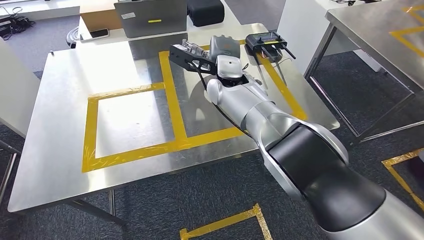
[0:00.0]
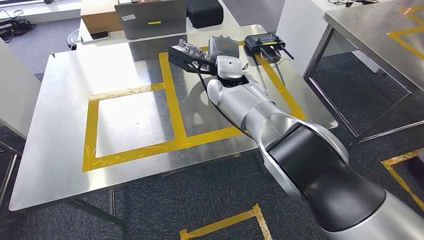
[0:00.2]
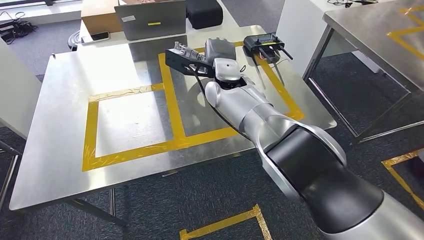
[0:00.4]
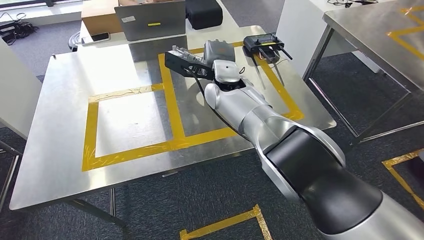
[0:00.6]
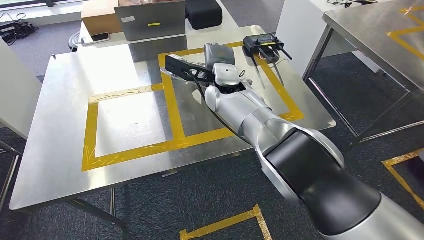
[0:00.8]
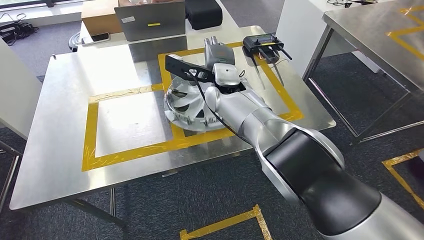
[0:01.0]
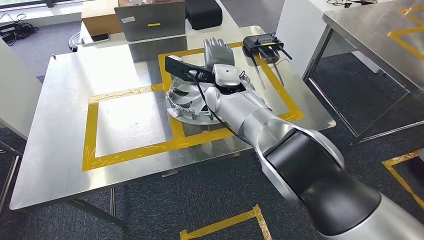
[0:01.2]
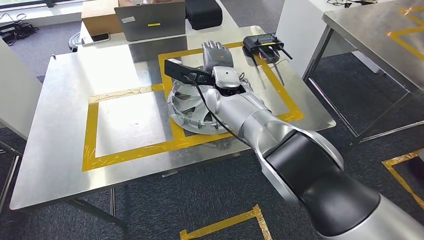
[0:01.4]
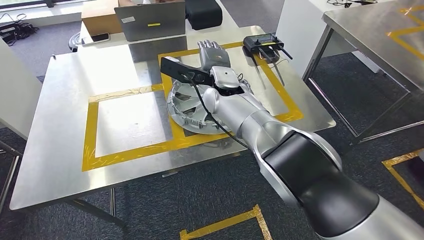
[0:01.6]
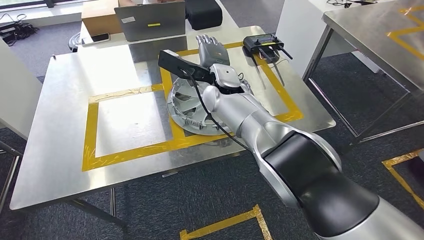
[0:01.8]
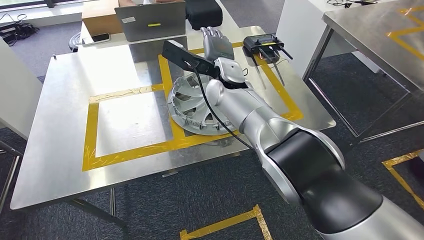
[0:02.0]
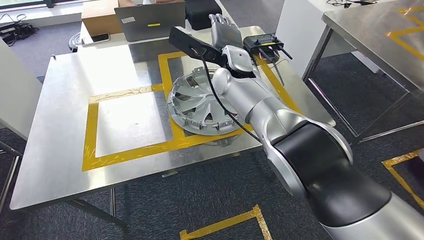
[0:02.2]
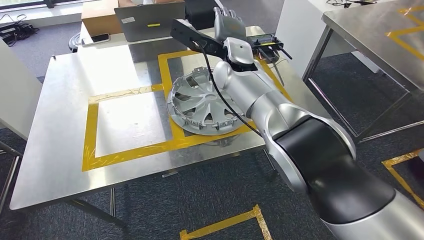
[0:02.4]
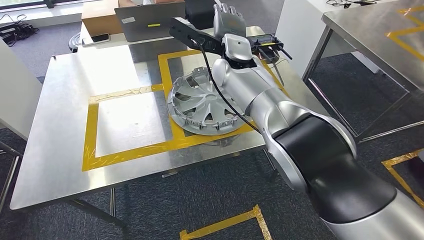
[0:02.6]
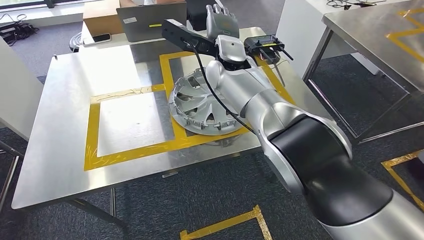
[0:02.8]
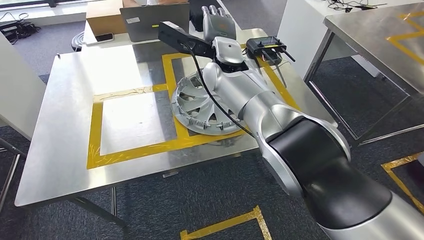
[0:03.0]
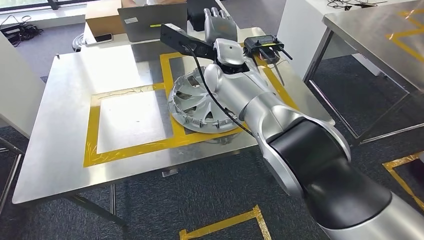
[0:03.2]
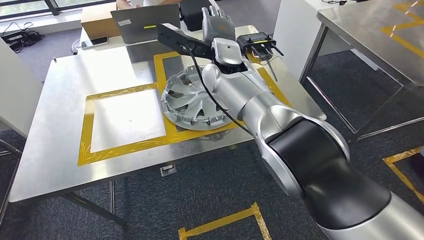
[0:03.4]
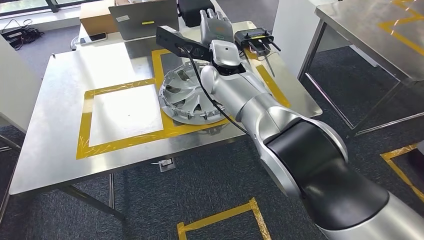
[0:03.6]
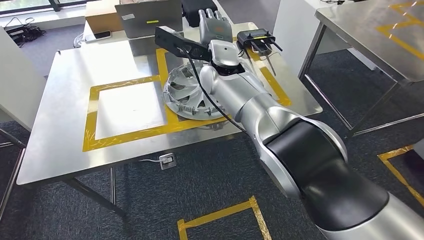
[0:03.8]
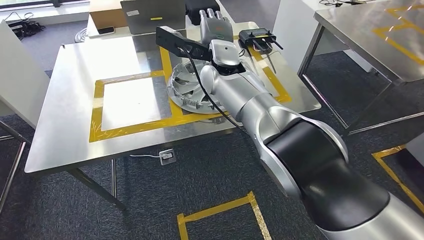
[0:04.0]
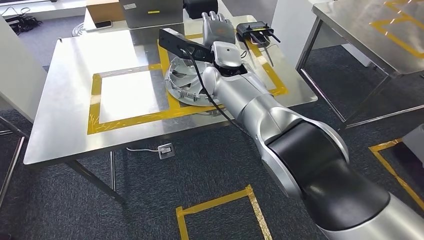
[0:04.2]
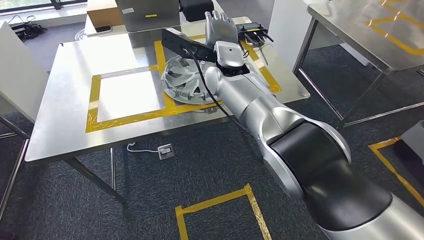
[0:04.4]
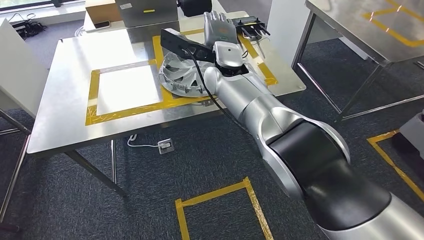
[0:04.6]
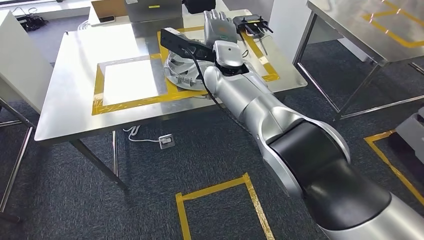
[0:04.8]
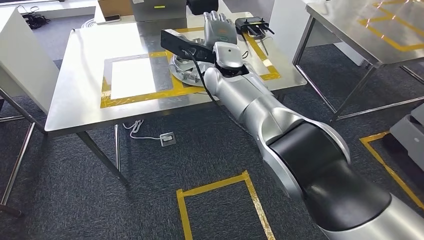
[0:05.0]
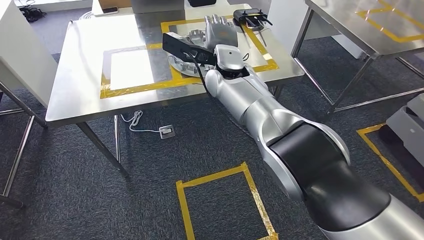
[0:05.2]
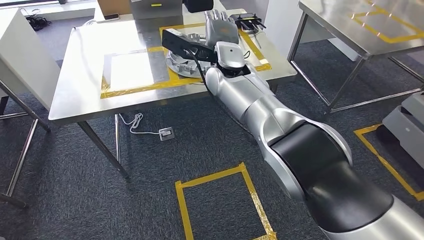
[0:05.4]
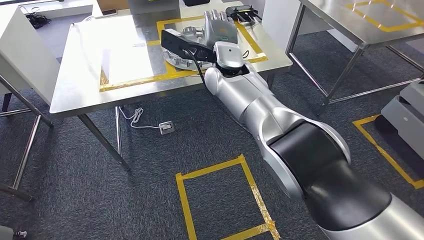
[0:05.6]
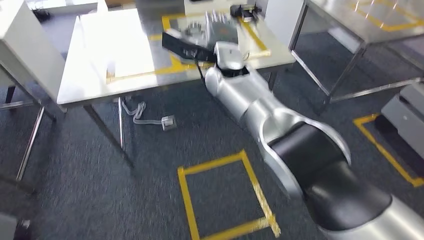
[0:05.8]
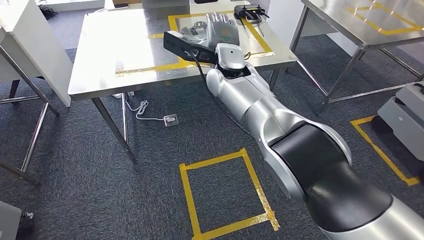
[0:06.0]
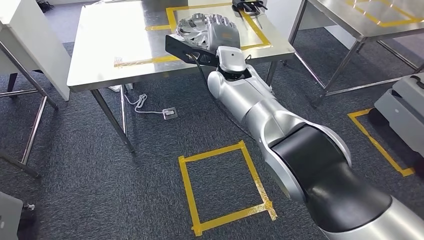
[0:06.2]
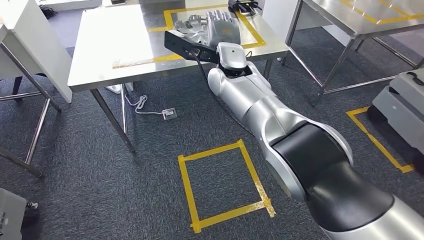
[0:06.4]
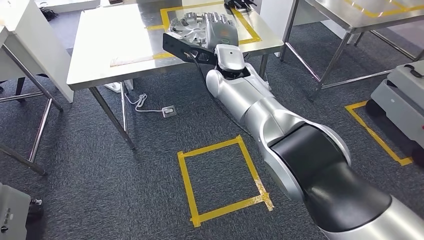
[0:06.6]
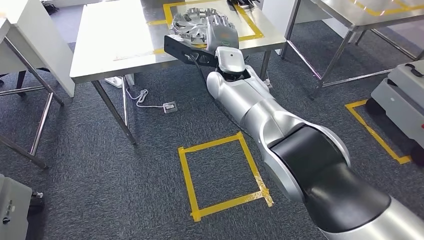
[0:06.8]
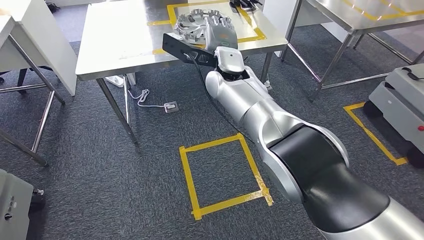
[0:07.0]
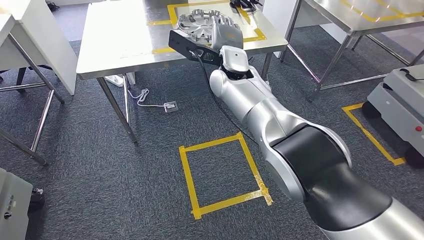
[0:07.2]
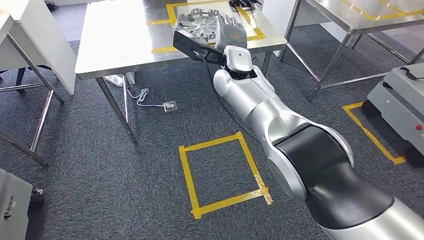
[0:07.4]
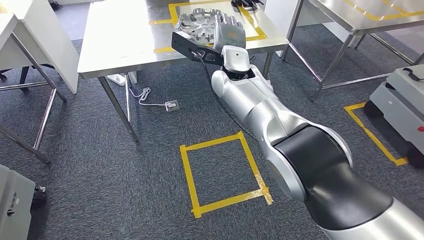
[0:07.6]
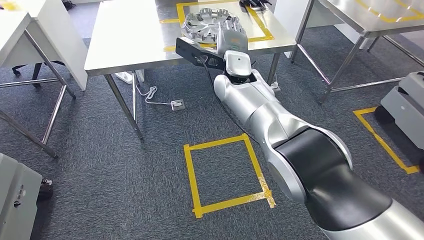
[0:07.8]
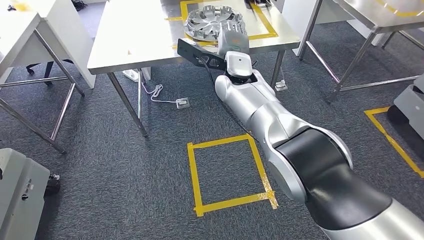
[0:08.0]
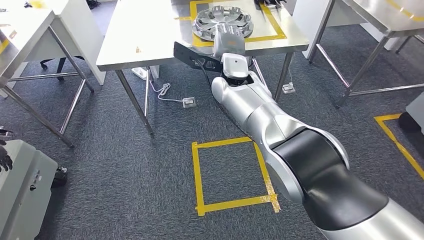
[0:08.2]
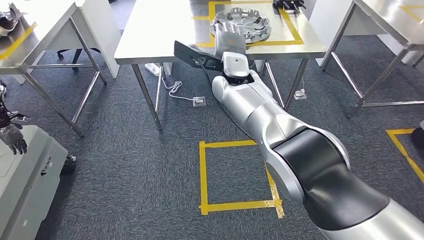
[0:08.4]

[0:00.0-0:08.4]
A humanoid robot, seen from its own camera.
Step, 0:00.4 to 0:03.0: Insert the small component into the corresponding slot on the workbench.
Step, 0:03.4 to 0:08.4: Return to the initial position at the workbench.
0:01.4 to 0:02.8: The right hand shifts some 5 cm upward.

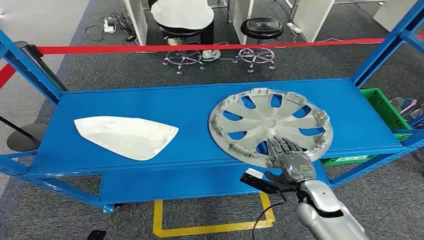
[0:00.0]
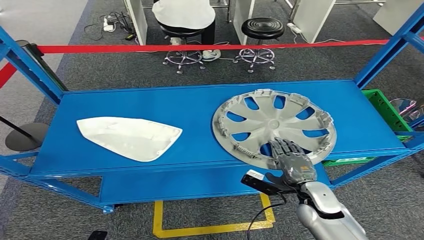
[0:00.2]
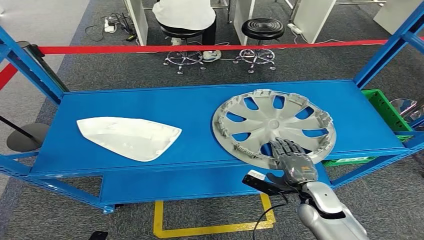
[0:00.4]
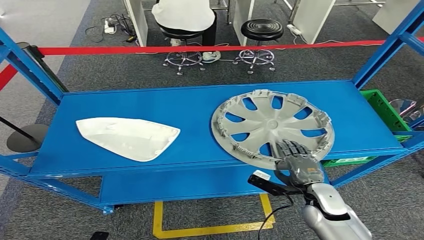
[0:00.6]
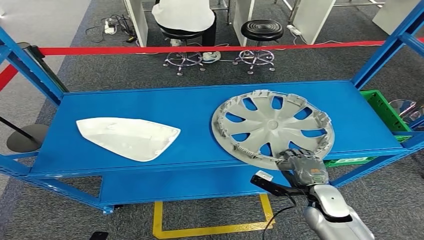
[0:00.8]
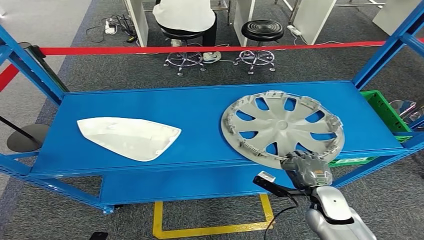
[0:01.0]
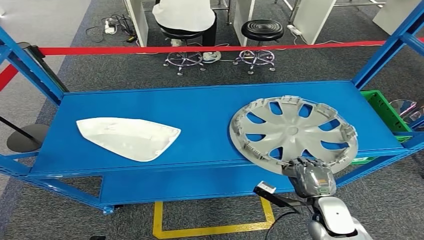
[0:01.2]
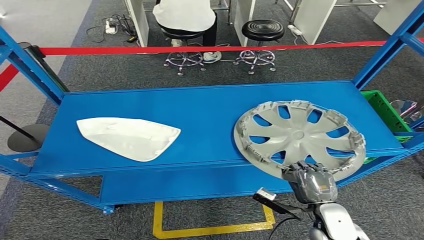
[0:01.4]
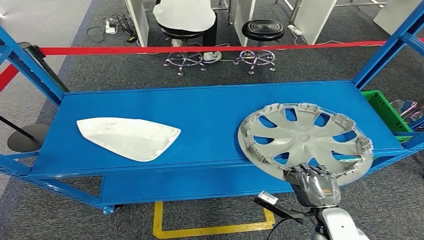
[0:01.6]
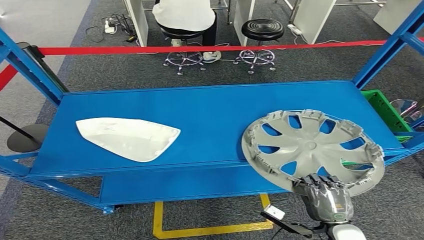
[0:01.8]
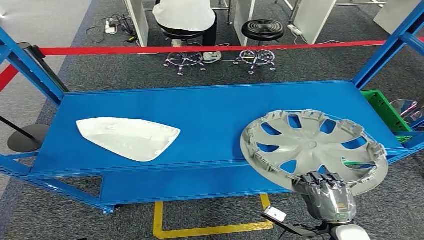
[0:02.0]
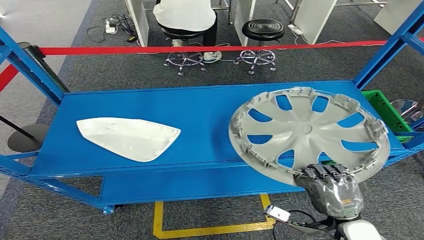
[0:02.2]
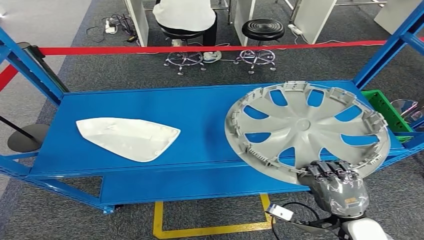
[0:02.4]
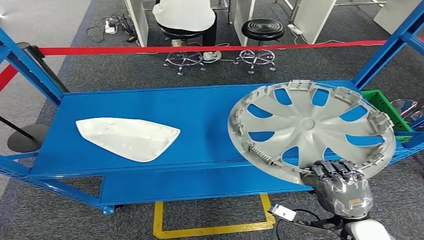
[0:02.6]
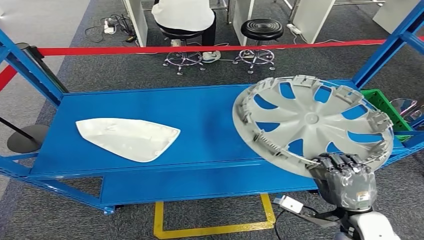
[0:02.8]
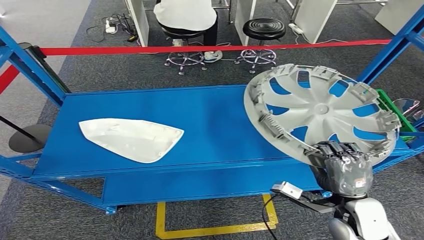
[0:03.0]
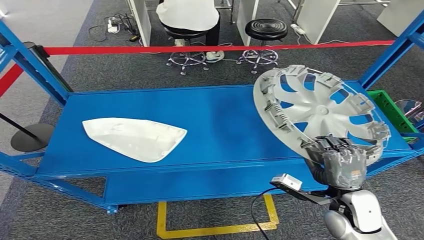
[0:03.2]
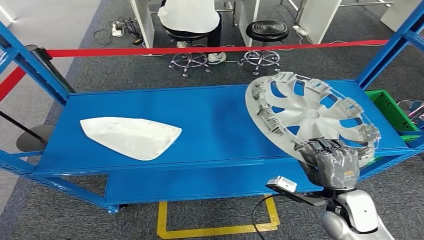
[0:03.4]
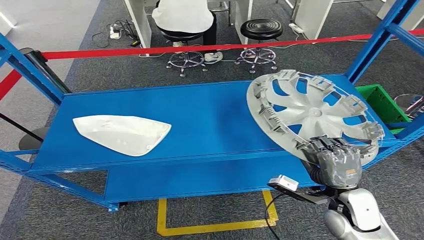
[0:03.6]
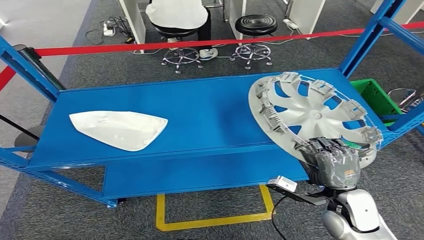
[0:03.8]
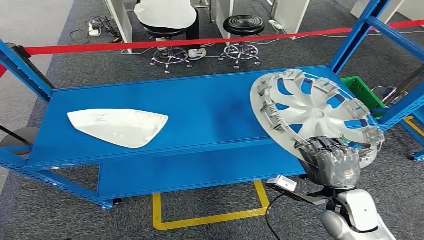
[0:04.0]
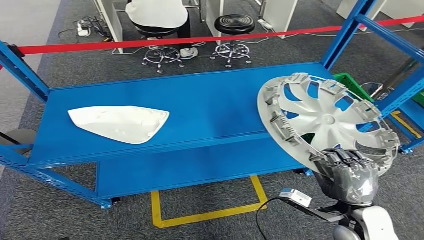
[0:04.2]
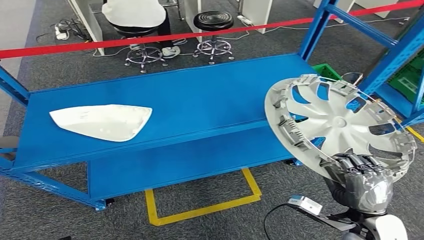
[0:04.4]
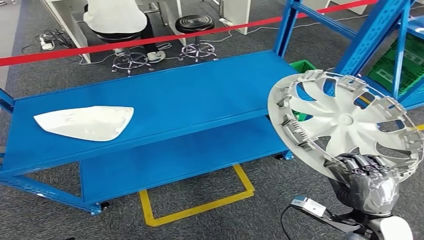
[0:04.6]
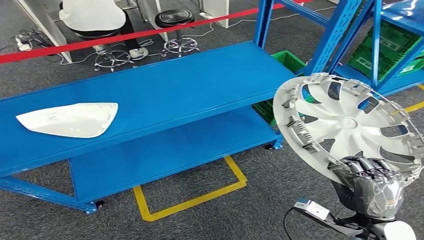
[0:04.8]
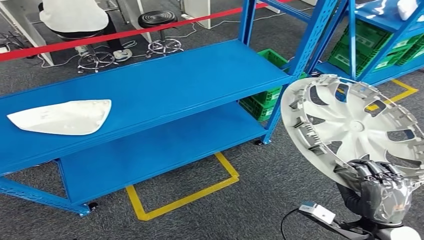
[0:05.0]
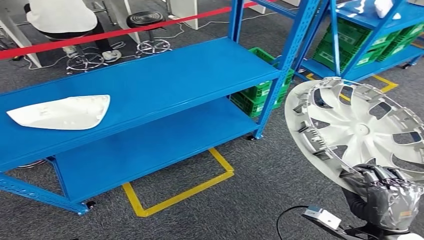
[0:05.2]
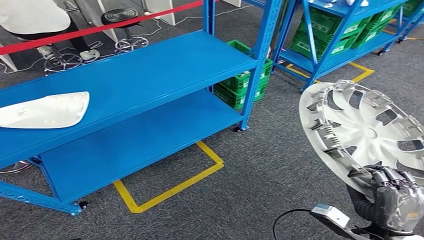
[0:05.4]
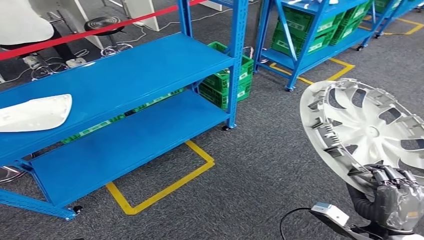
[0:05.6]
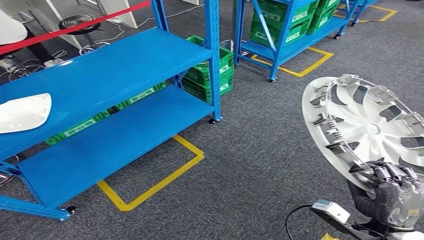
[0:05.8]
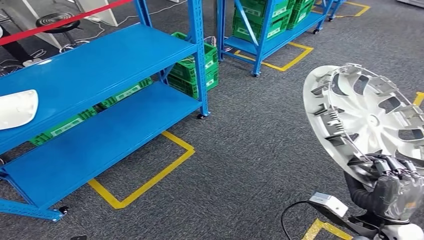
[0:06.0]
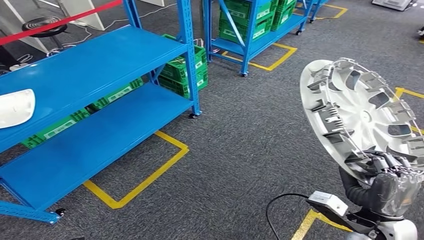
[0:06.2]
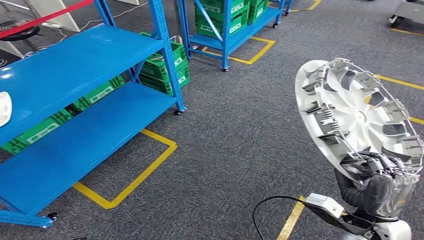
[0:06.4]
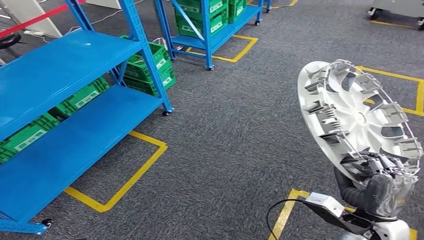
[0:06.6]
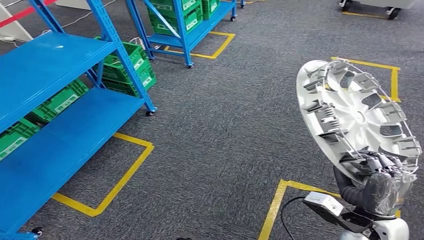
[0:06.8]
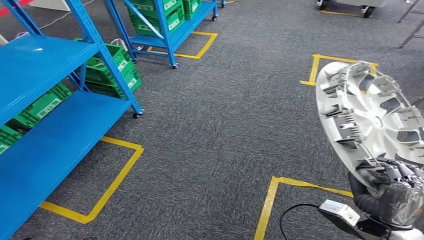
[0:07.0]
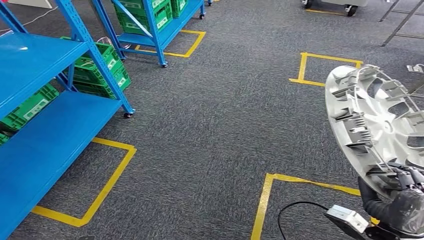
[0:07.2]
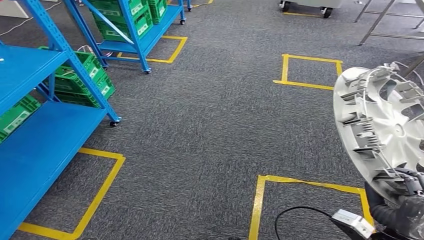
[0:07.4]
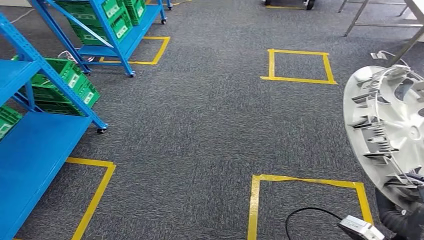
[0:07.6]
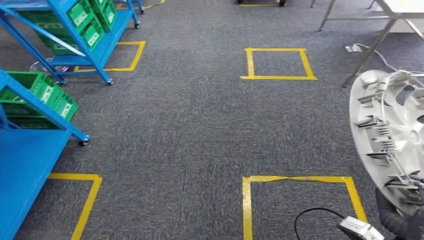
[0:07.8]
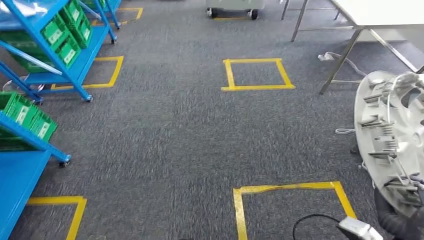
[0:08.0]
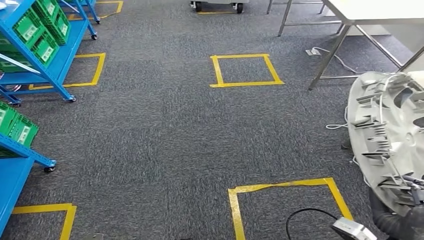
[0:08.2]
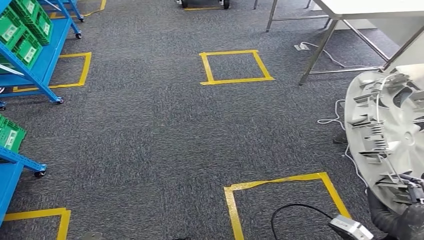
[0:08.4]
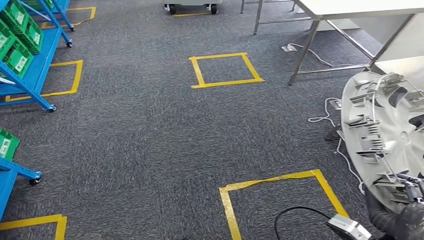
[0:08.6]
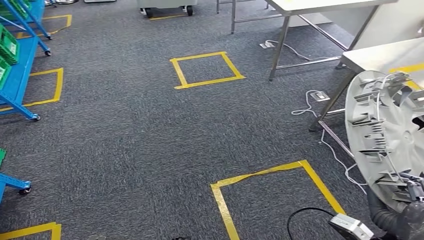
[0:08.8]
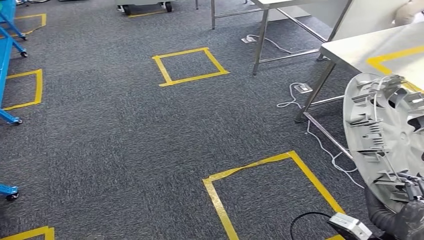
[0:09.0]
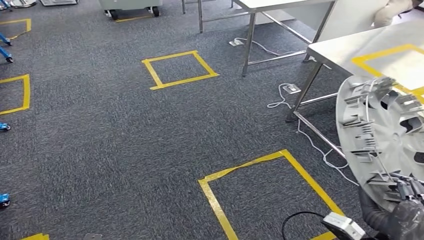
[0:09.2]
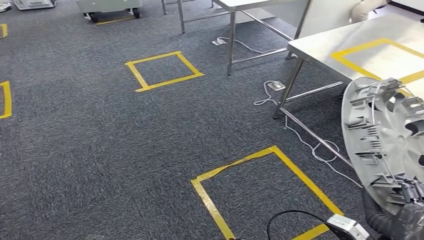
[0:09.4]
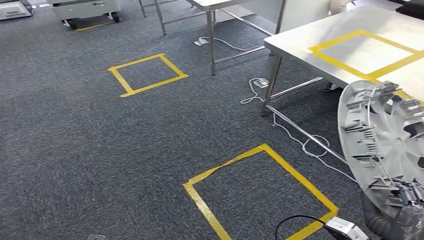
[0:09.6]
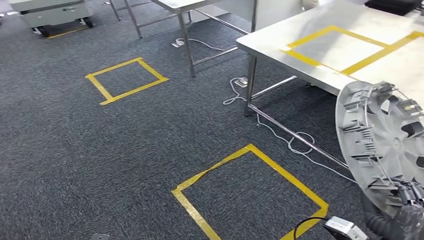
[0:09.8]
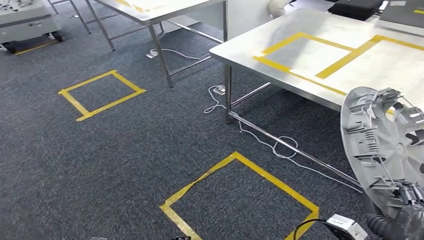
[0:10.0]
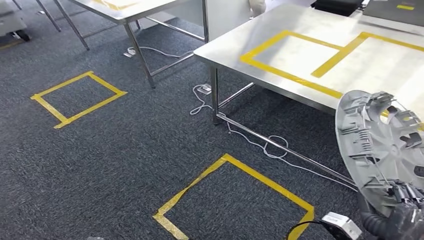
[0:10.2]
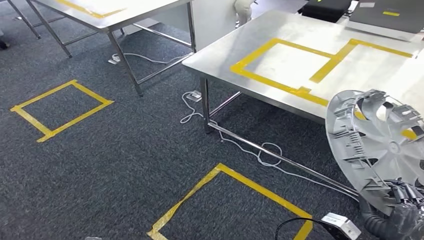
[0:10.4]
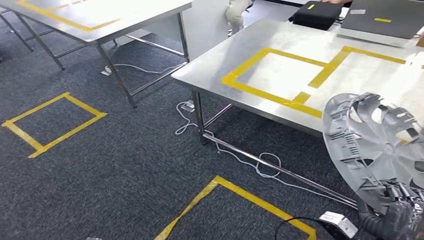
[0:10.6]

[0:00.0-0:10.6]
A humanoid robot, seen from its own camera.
Step, 0:00.0 to 0:04.2: Pick up the small component from the shelf.
Step, 0:04.4 to 0:10.0: Move the small component to the workbench.
